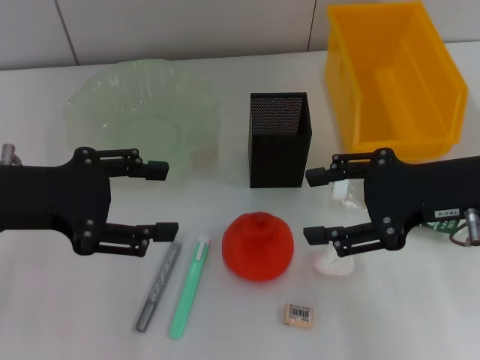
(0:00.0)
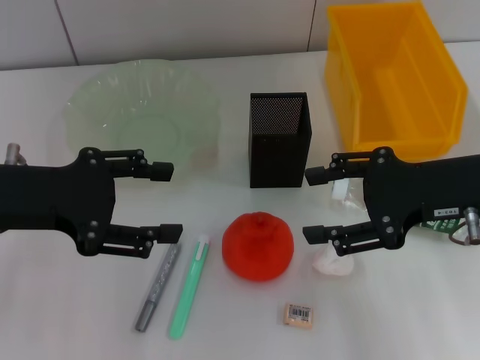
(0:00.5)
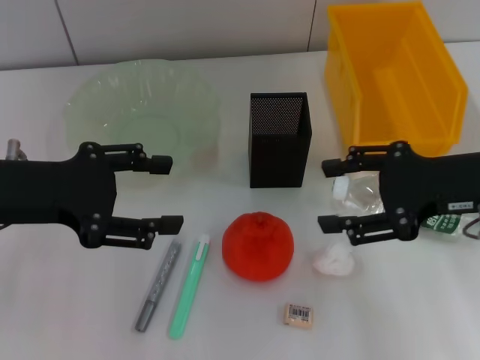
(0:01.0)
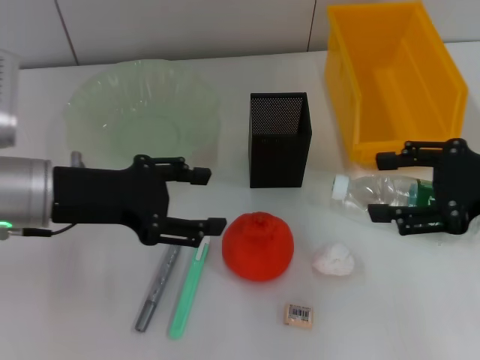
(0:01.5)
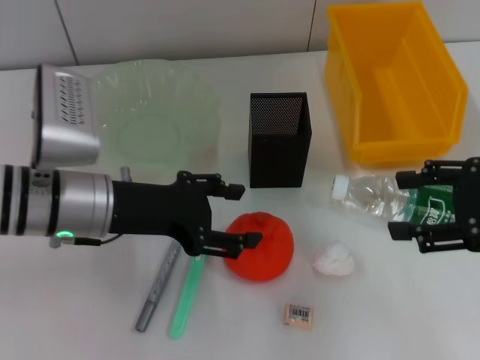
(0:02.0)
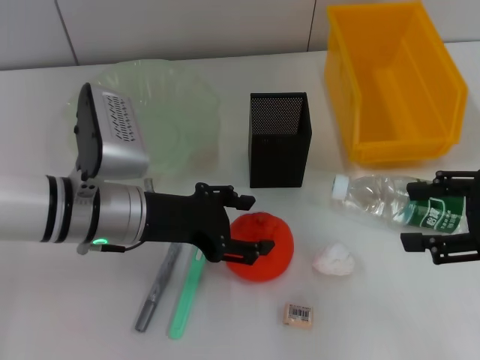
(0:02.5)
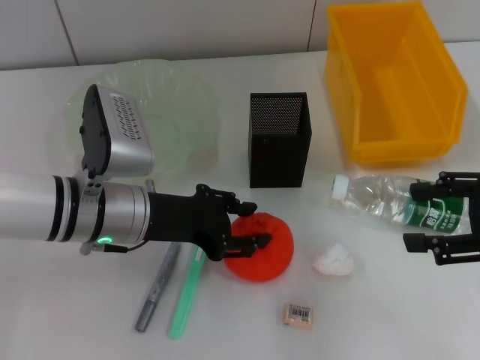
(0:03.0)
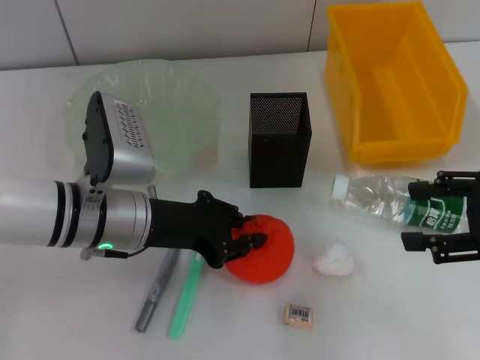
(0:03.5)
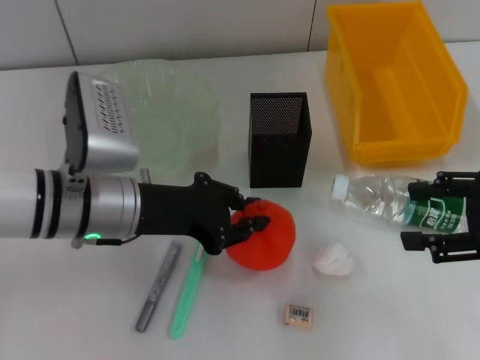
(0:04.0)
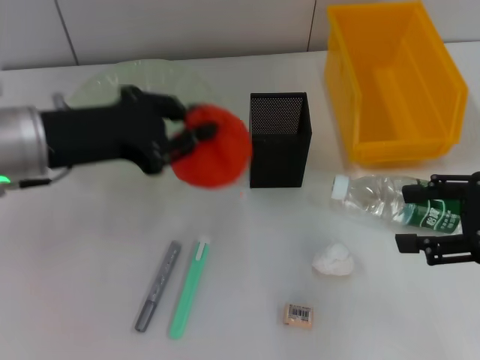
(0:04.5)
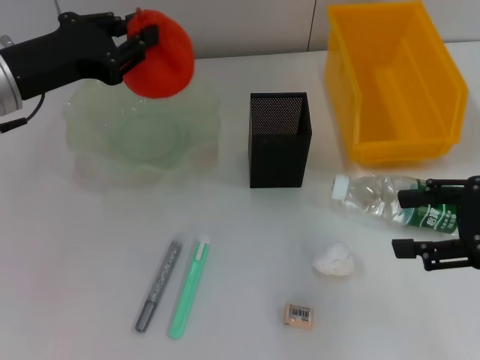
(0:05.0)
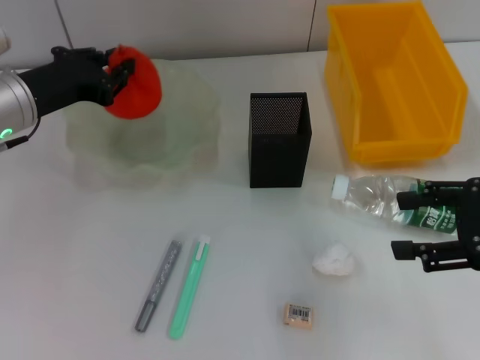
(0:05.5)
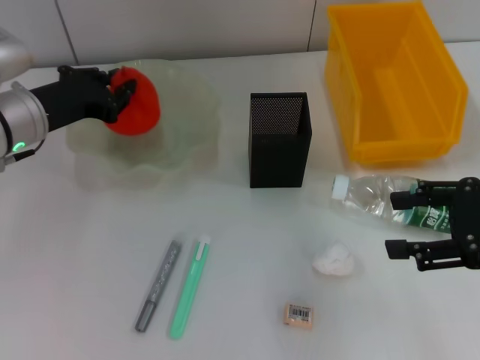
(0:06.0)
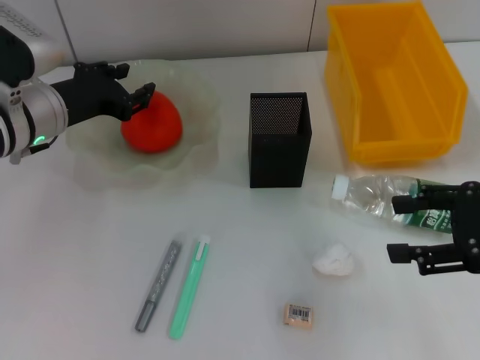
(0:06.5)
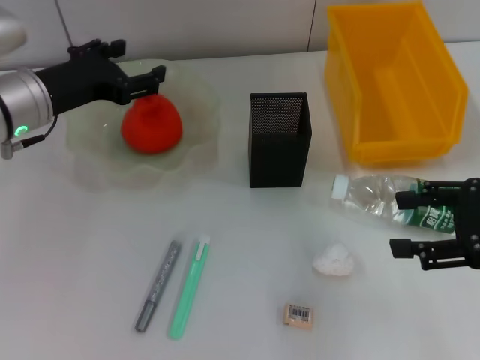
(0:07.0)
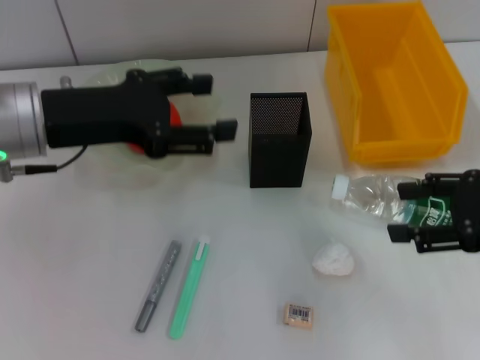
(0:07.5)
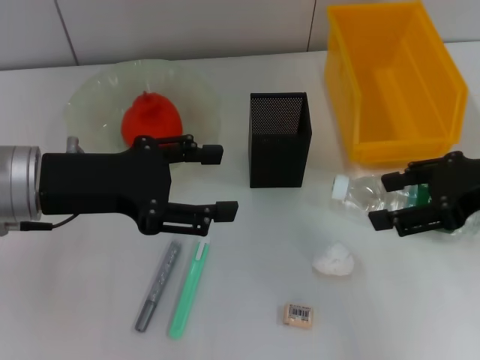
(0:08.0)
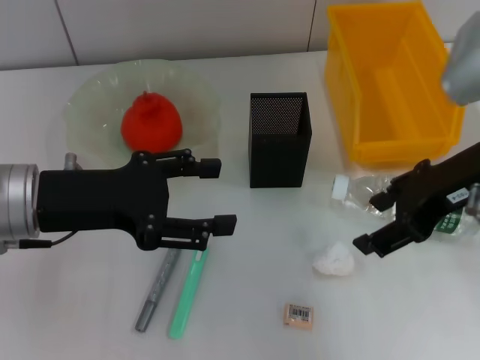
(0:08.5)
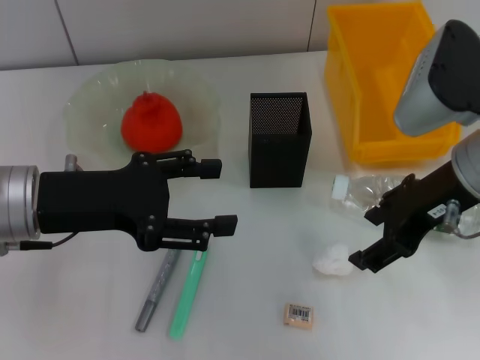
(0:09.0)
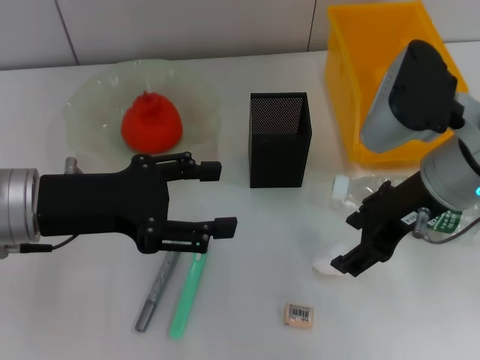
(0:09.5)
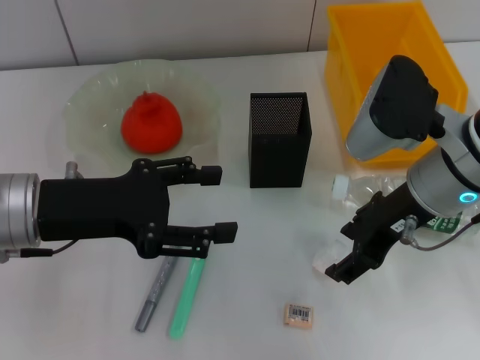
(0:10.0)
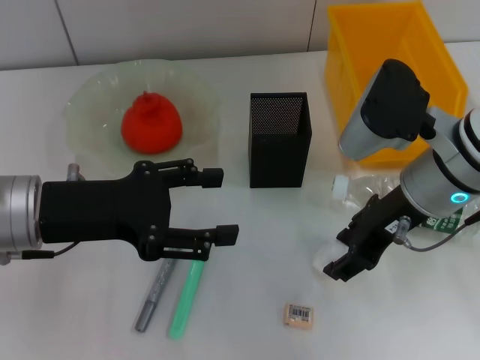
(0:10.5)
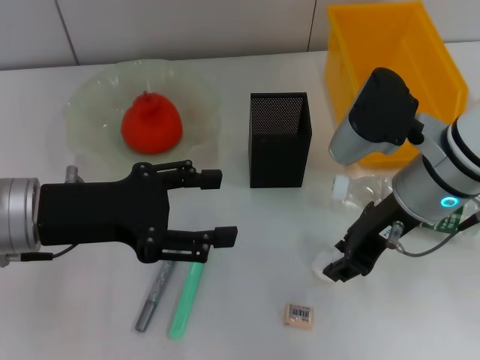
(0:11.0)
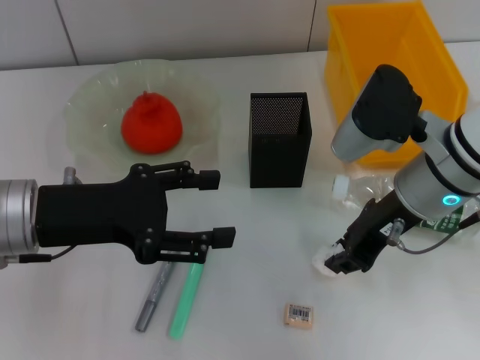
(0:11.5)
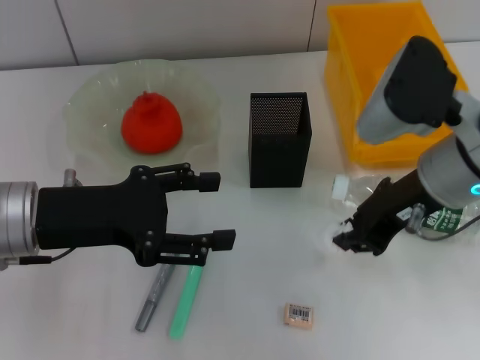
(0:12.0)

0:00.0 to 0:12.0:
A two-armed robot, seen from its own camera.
Step, 0:00.0 to 0:03.5: Grab the orange with the left hand.
Step, 0:04.0 to 0:06.5: Place the orange into the fruit bowl with the left hand.
Step, 0:07.0 to 0:11.5: Grab the paper ball with the right hand.
0:00.0 to 0:02.0: The left gripper travels to the right and downward by roughly 10 cm. The right gripper travels to the right by about 5 cm.
0:02.0 to 0:04.0: The left gripper closes its fingers.
0:04.0 to 0:06.0: The left gripper shifts about 10 cm to the left and forward.
0:06.0 to 0:08.0: The left gripper travels backward by roughly 10 cm, and opens its fingers. The right gripper shifts by approximately 5 cm.
0:08.0 to 0:10.0: The right gripper travels to the left by some 10 cm.
0:10.0 to 0:12.0: The right gripper closes its fingers.

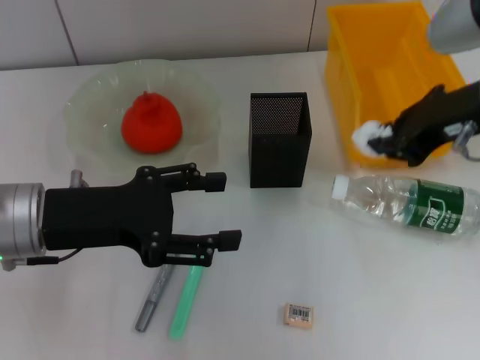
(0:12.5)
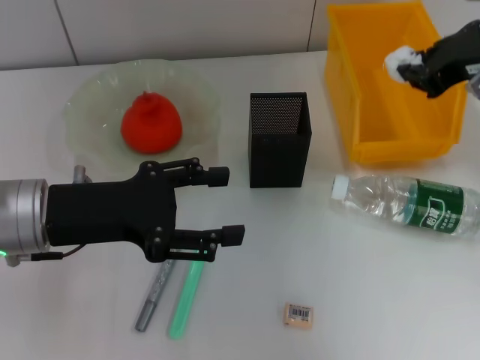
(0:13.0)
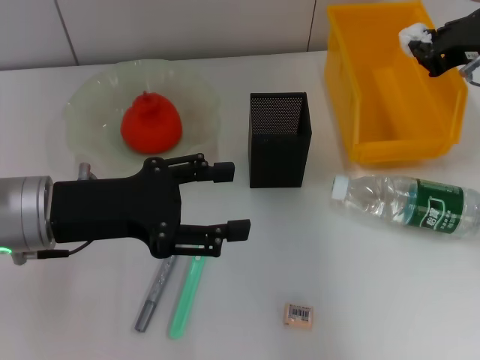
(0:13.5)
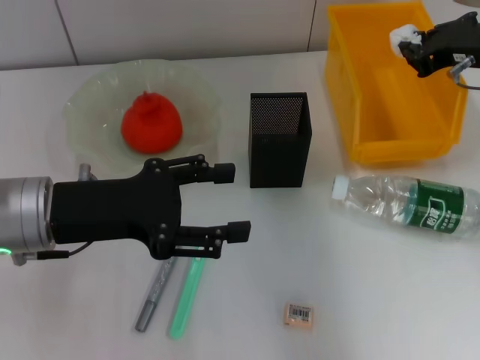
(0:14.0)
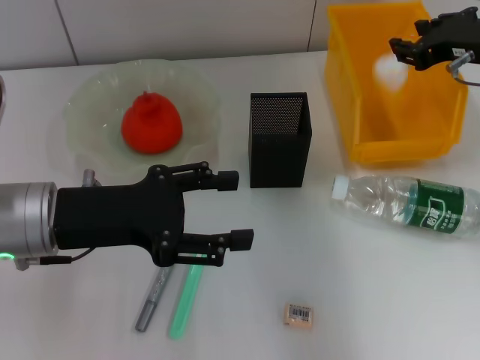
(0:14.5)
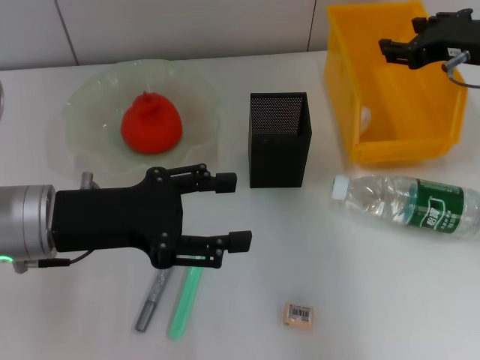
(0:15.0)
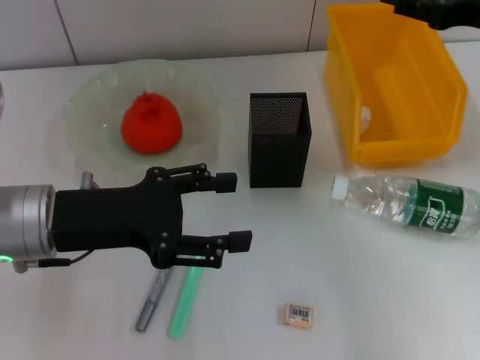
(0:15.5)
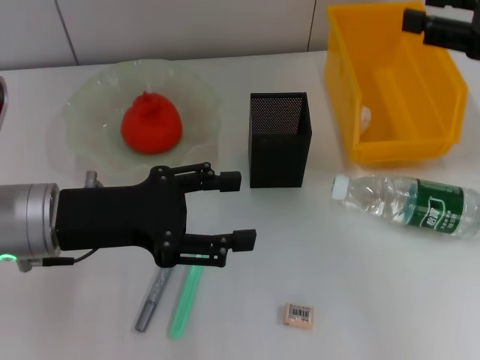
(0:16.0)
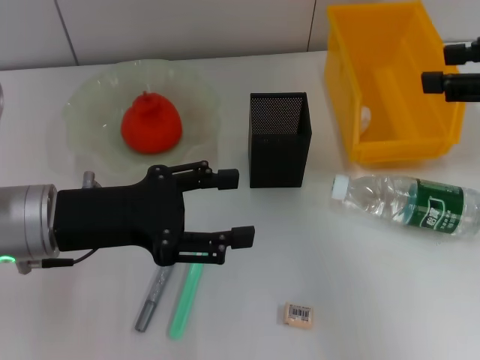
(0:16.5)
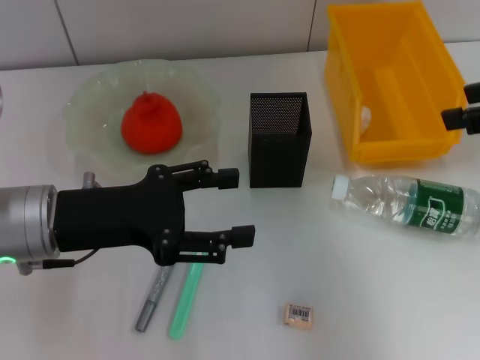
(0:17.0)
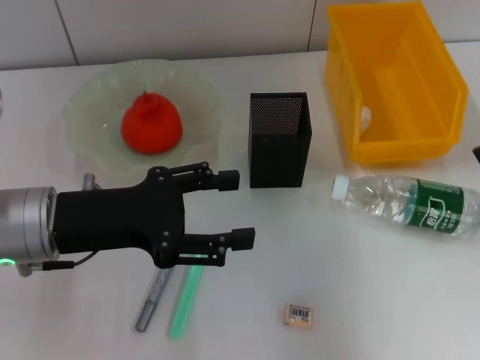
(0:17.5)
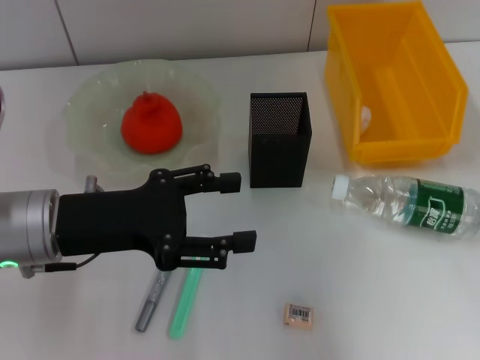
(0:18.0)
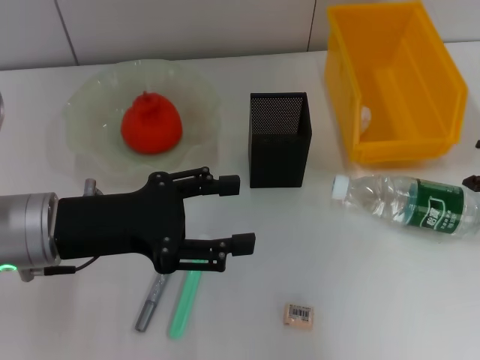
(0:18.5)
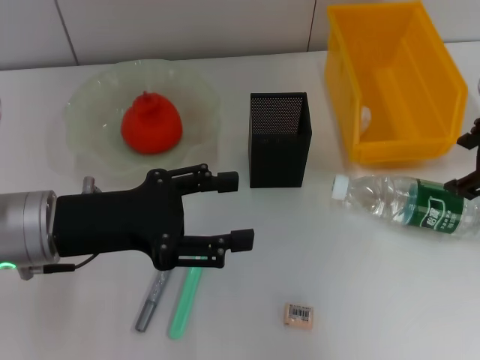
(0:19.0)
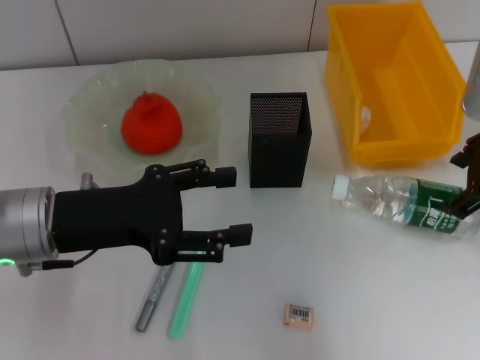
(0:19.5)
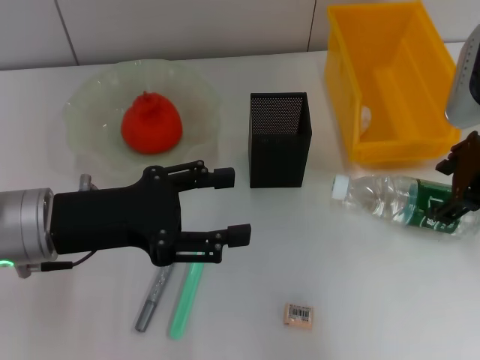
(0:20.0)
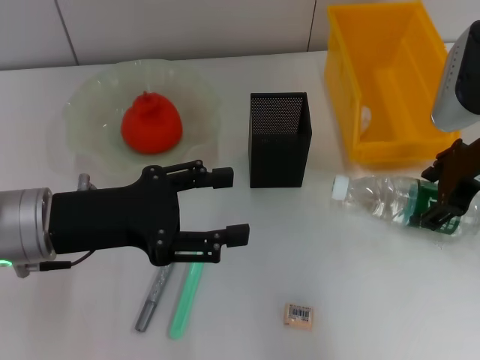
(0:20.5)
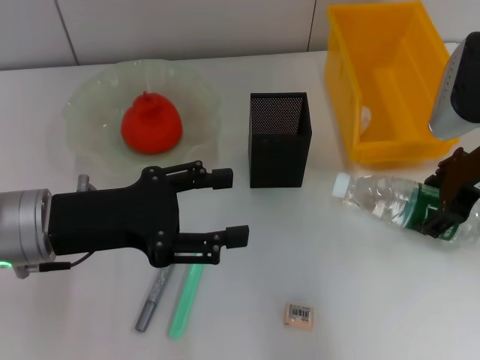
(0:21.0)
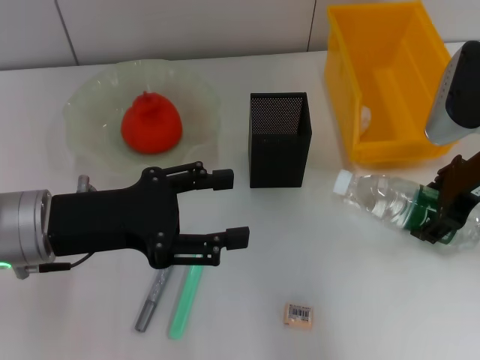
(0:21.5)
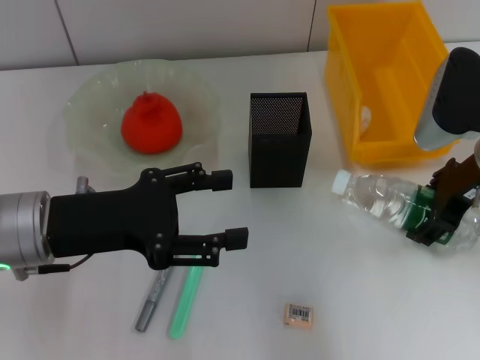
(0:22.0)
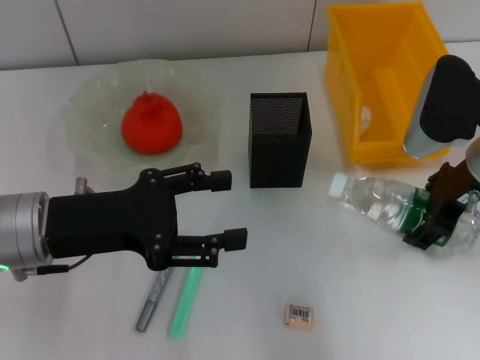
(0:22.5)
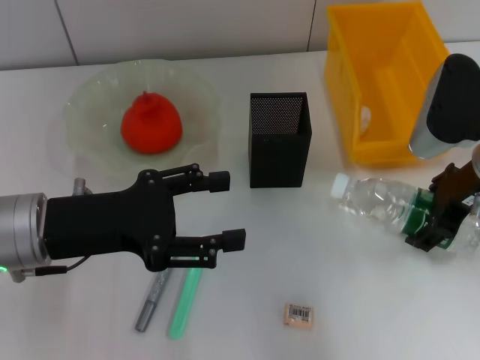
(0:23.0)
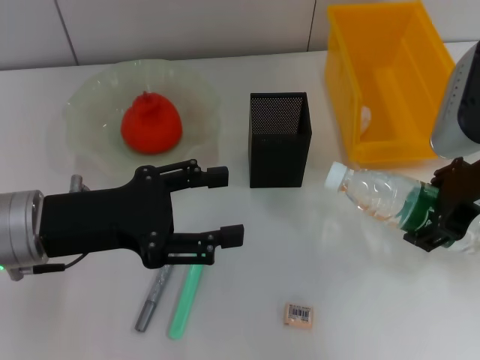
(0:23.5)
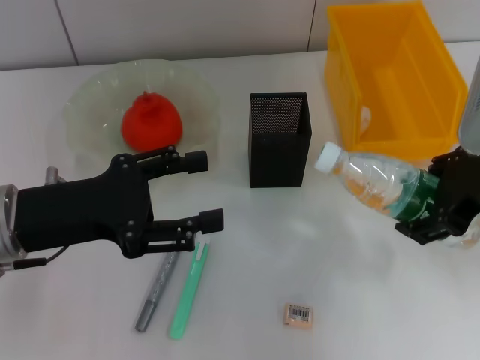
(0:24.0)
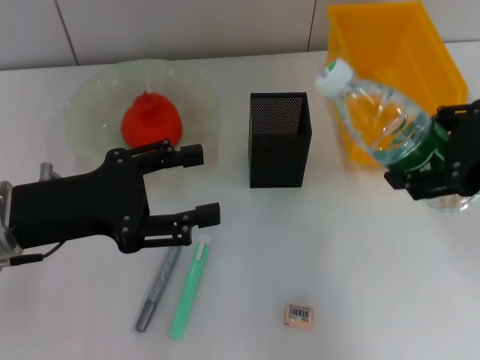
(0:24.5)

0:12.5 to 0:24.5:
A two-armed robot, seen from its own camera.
Step, 0:12.5 to 0:14.5: Place the paper ball into the trash can with the right hand.
Step, 0:15.0 to 0:23.0: Grab the water bottle with the right hand.
0:12.5 to 0:14.5: The right gripper is displaced forward and to the right by approximately 10 cm.
0:14.5 to 0:16.5: The right gripper is displaced backward, upward and to the right by approximately 10 cm, and opens.
0:18.5 to 0:20.5: The right gripper heads downward, covering about 5 cm.
0:20.5 to 0:22.5: There are only small adjustments of the grippers.
0:22.5 to 0:24.5: The right gripper moves upward and backward, approximately 15 cm.

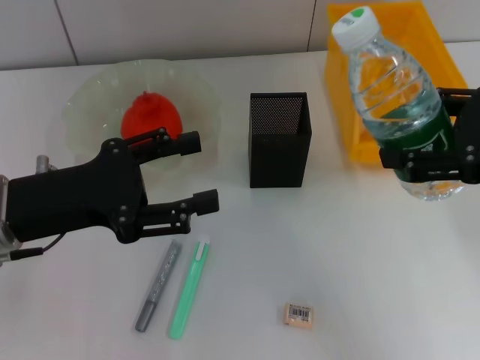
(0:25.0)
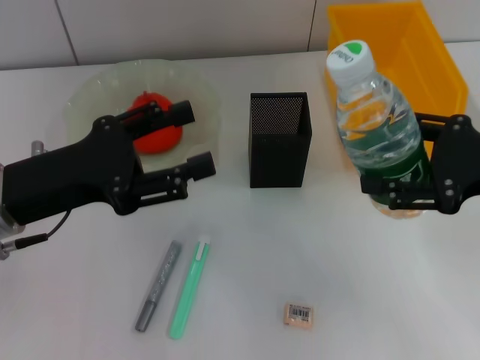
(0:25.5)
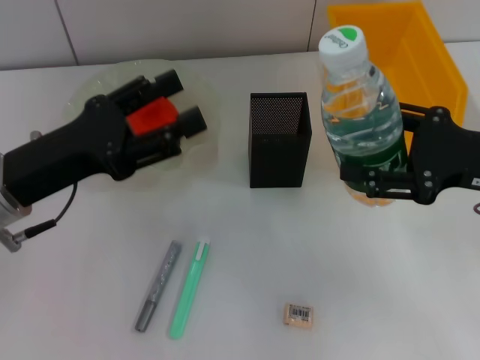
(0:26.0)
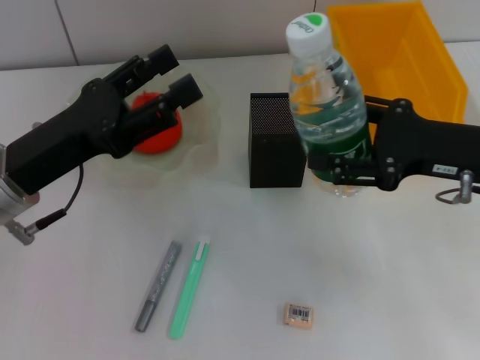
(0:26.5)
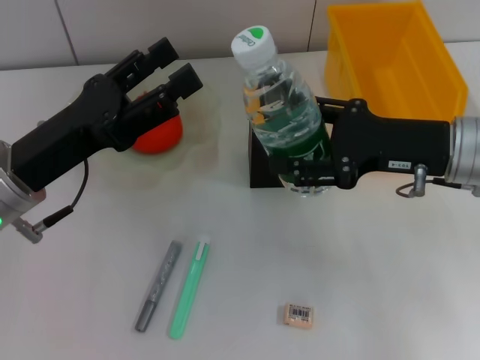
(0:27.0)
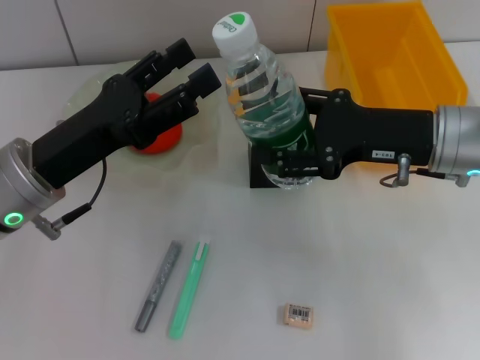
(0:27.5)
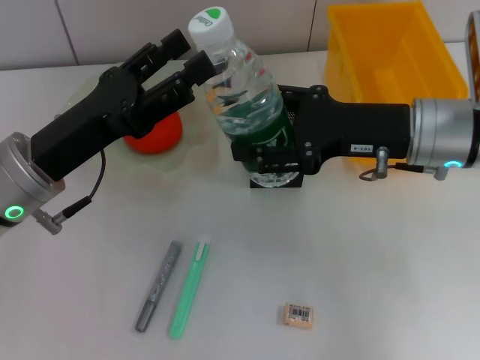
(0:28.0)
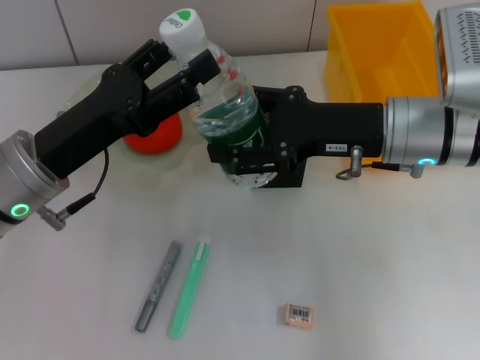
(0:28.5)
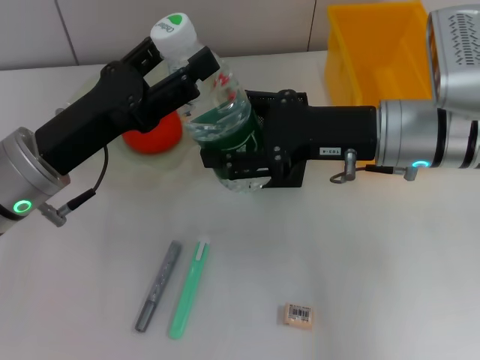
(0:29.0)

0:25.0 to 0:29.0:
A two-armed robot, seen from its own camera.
0:25.0 to 0:27.0: The right gripper is displaced downward, to the left and forward by about 10 cm.
0:27.0 to 0:29.0: The right gripper moves to the left, approximately 5 cm.
